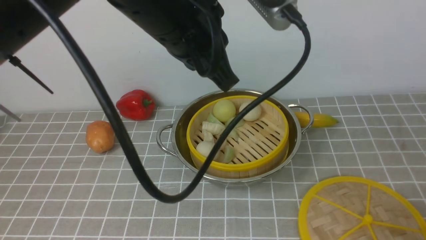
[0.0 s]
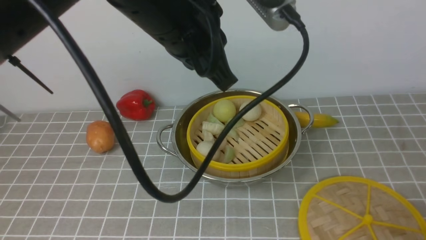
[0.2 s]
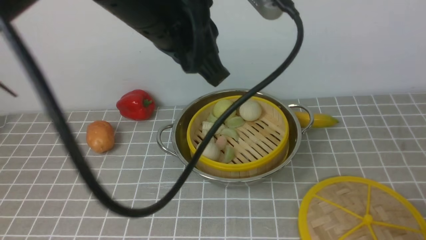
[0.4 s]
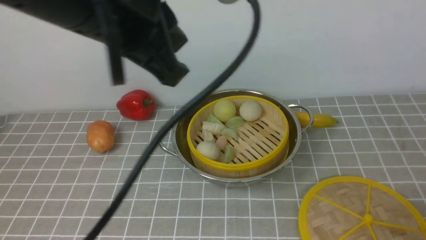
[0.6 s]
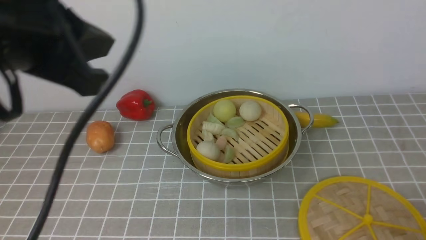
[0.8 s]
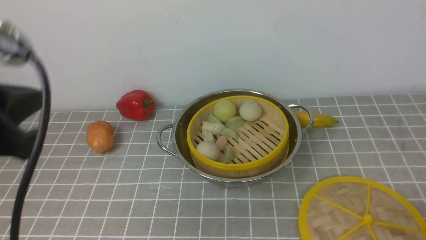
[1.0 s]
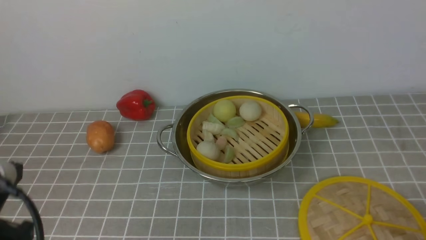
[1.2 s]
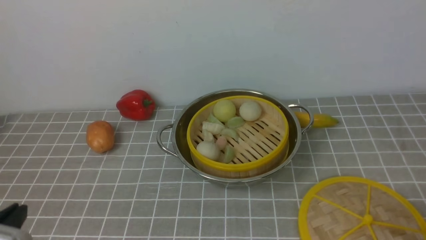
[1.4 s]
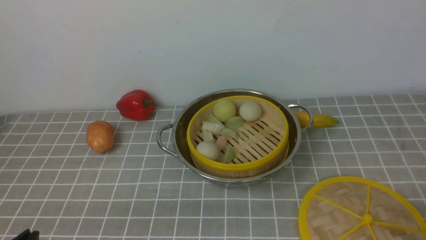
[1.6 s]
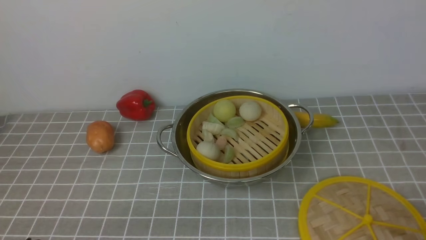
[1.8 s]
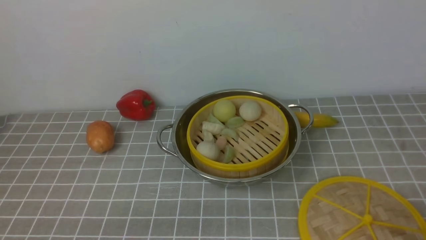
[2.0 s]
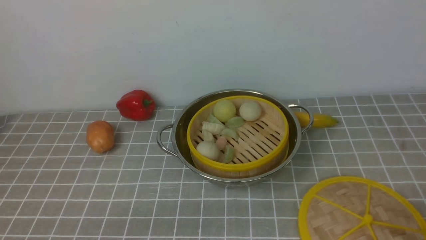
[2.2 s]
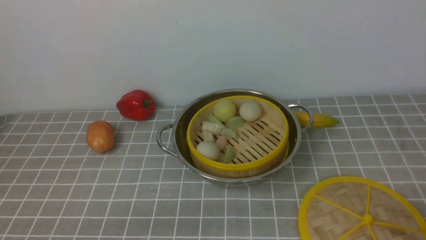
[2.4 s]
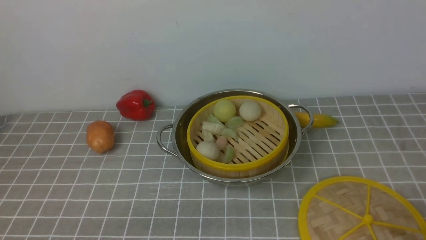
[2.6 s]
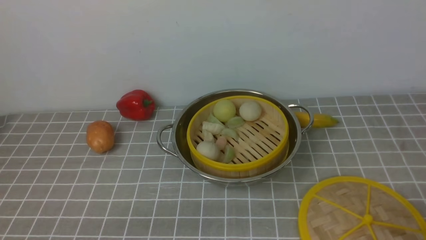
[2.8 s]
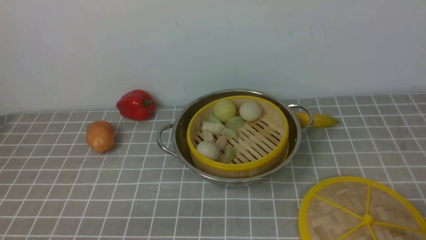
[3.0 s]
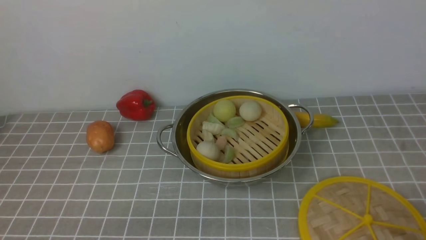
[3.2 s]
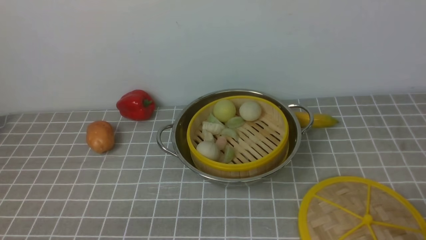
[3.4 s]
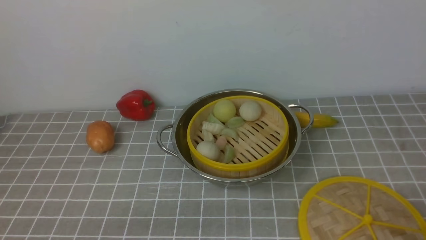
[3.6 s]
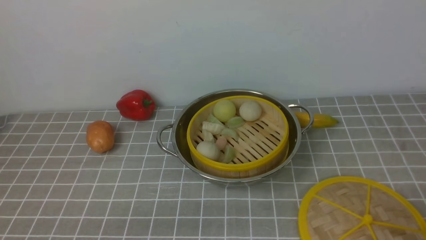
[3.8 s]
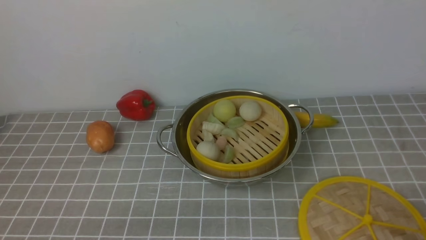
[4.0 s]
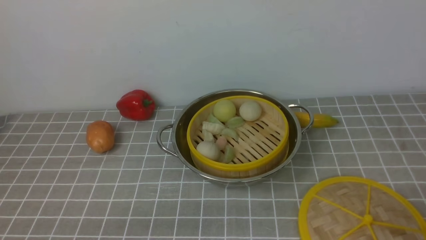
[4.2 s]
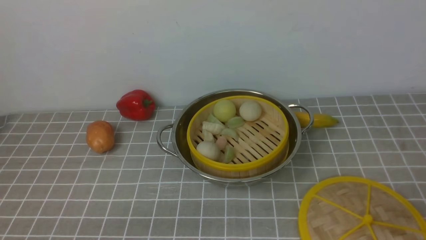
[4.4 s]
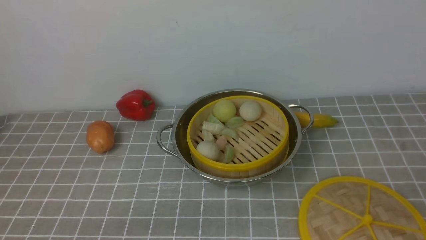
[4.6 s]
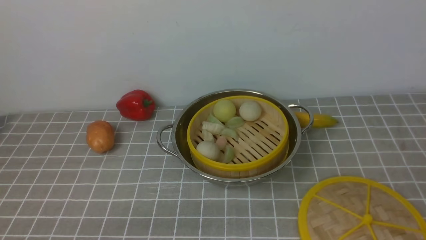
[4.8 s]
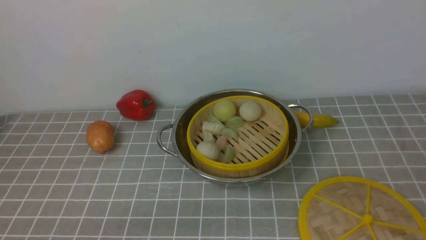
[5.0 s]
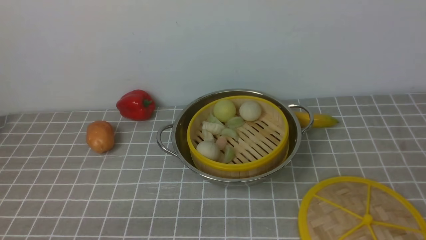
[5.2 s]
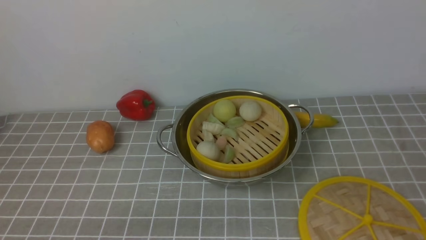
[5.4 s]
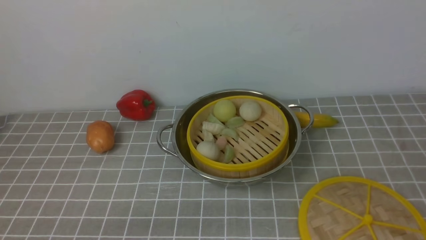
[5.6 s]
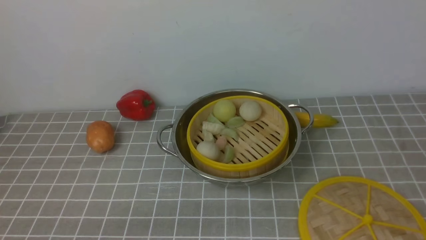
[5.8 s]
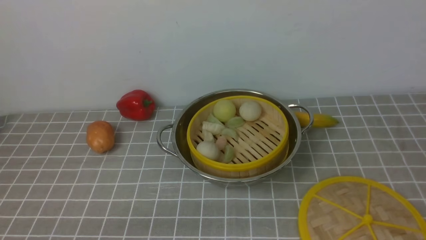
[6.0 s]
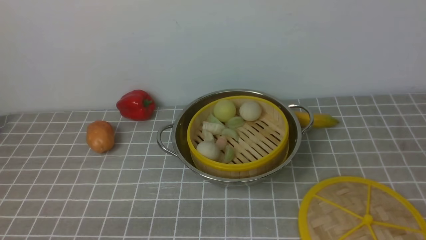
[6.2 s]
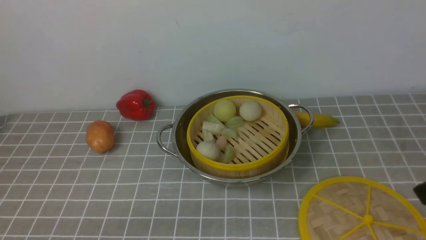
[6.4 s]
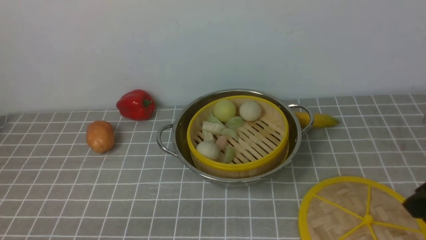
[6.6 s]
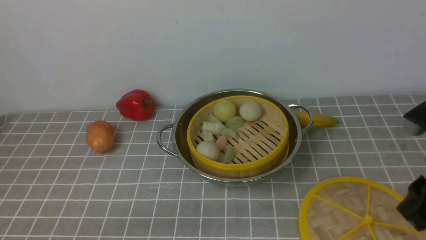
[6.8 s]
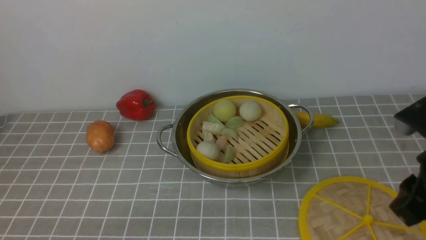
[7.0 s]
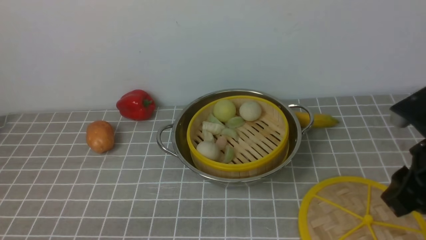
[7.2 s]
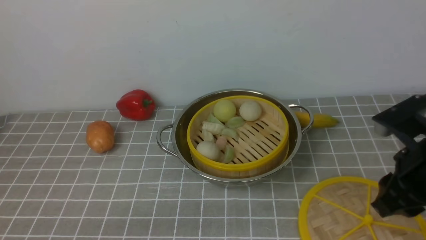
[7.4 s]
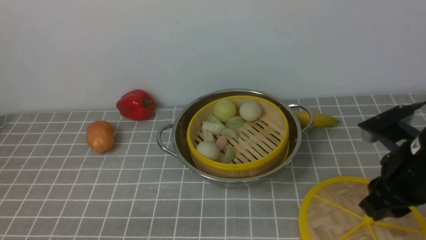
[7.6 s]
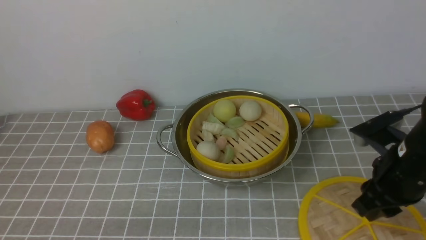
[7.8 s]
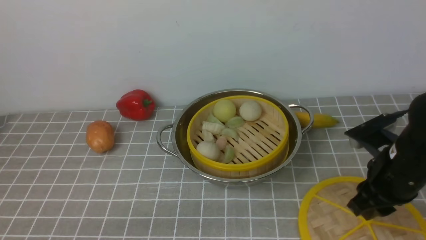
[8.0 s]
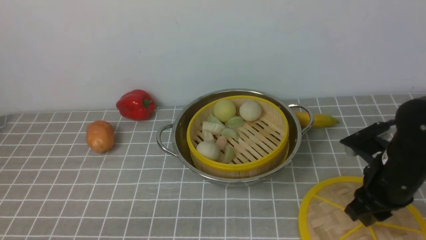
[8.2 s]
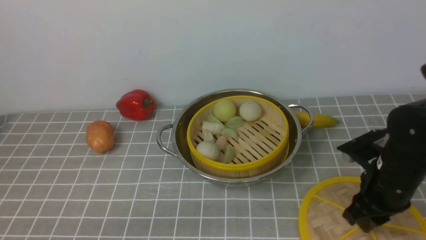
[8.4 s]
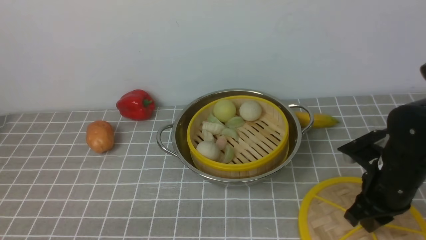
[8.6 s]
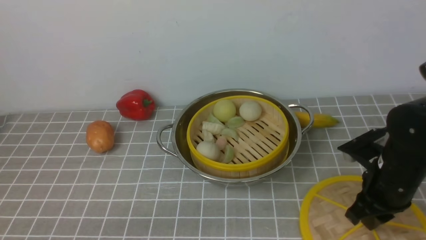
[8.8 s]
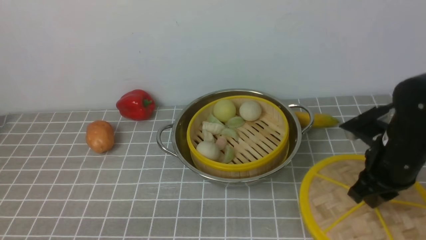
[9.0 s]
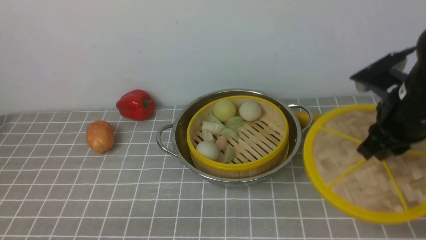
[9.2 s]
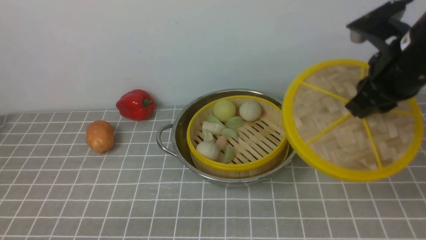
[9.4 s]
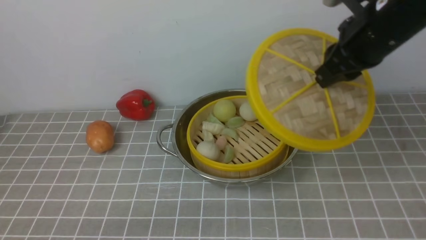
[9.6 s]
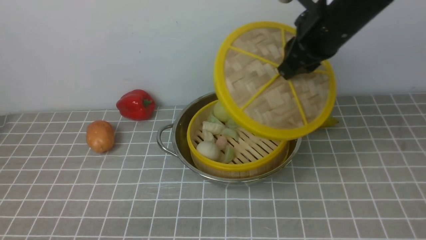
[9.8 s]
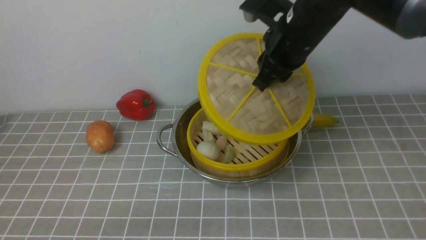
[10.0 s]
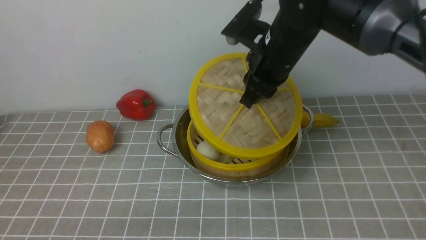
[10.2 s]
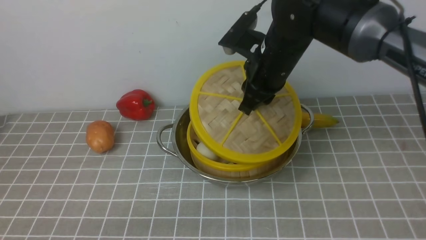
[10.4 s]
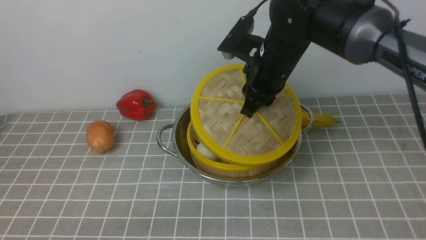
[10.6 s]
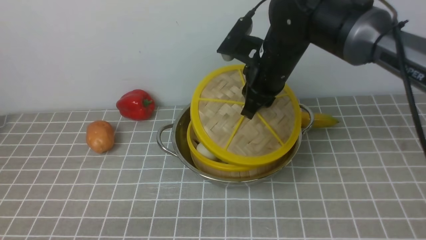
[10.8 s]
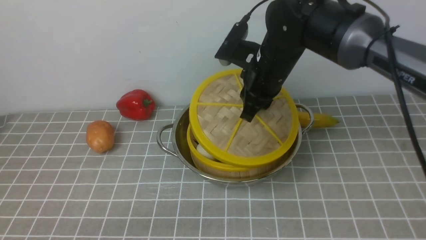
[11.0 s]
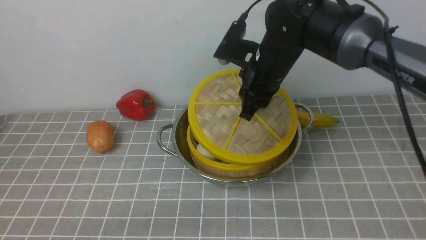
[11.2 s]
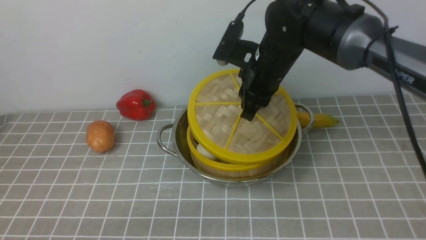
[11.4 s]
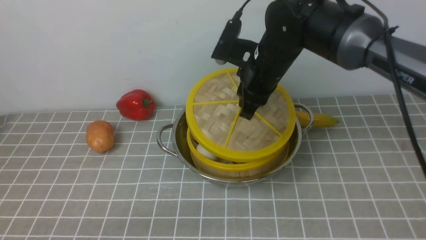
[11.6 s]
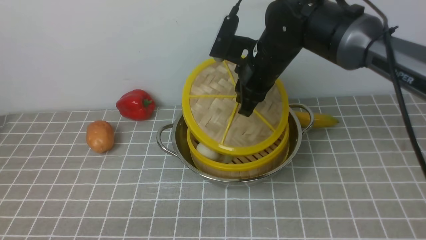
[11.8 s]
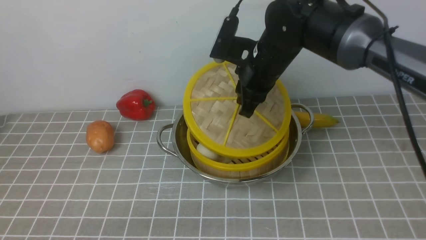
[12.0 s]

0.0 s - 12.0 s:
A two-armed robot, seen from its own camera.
Task of the whole recording: place the steamer in the pot on the grey tablecloth, and put the lid on the steamer.
Step, 0.0 s - 8.8 s: use the right arm to lift the lid of the steamer.
0.0 s - 1.6 s: The left gripper goes some 35 cm backward, to the left and downward.
6.0 s - 7.6 s: The right gripper shifts some 20 cm forward and downward.
7.6 s - 9.0 s: The right gripper shifts by roughly 5 cm, and closes.
9.0 s - 10.4 s: The right gripper moves to the left, forward and upward, approximately 20 cm.
10.4 s - 12.0 s: There are only small adjustments of the grippers.

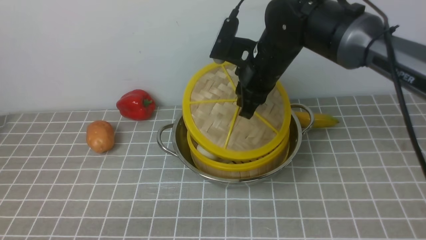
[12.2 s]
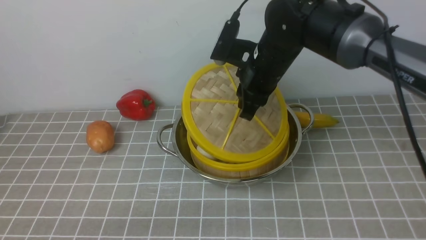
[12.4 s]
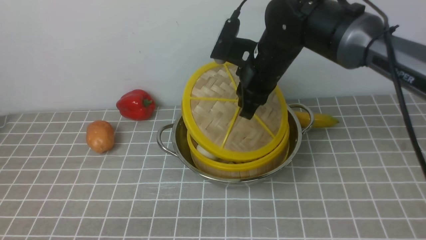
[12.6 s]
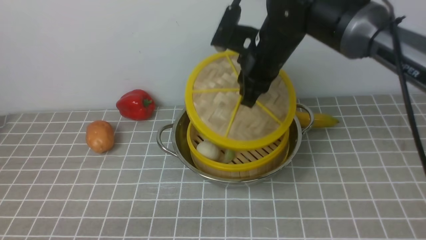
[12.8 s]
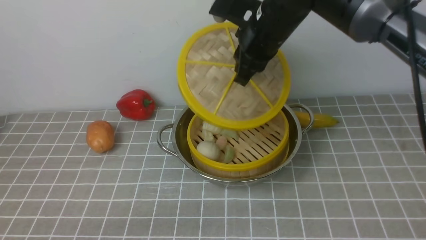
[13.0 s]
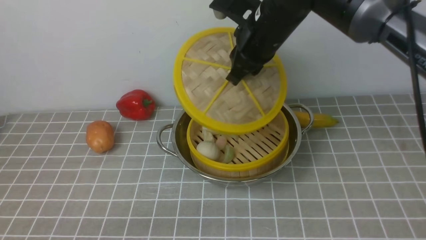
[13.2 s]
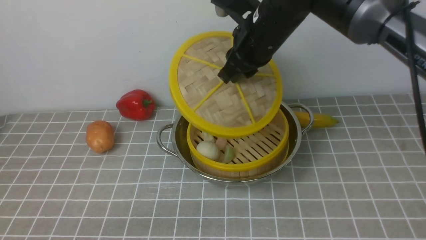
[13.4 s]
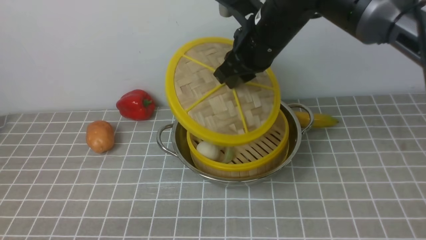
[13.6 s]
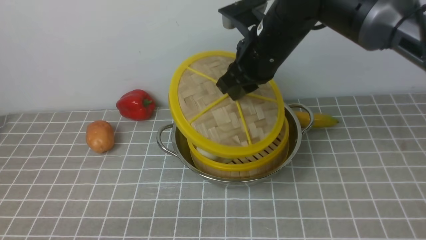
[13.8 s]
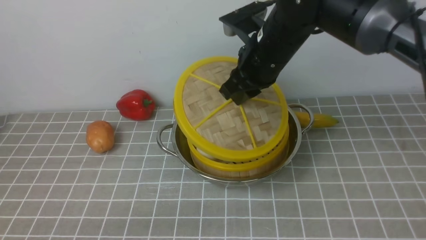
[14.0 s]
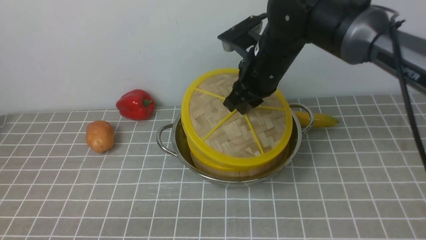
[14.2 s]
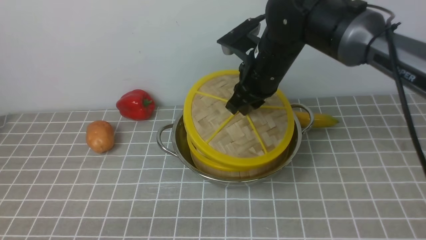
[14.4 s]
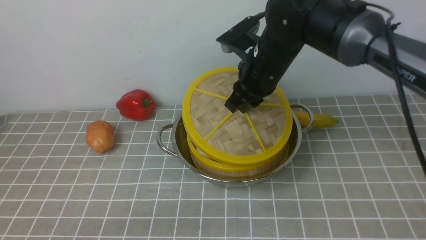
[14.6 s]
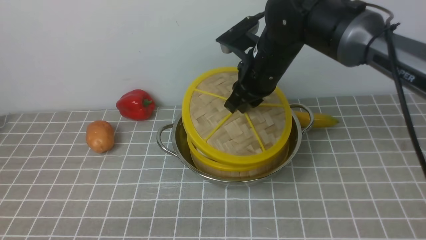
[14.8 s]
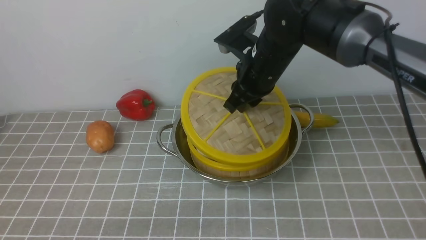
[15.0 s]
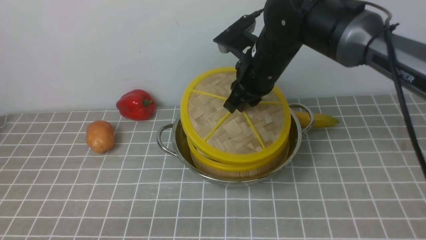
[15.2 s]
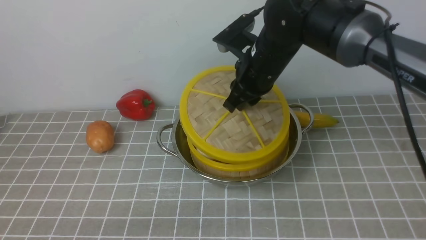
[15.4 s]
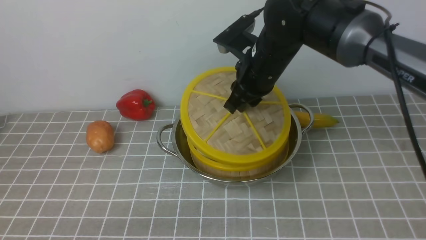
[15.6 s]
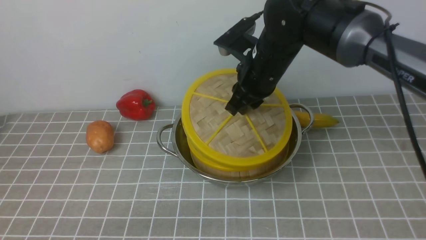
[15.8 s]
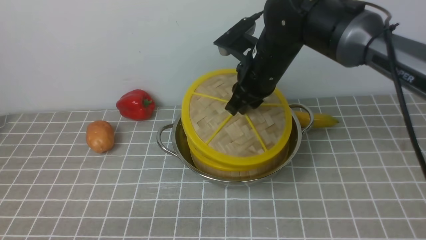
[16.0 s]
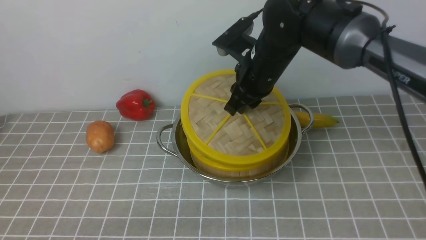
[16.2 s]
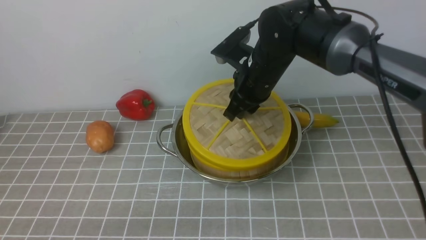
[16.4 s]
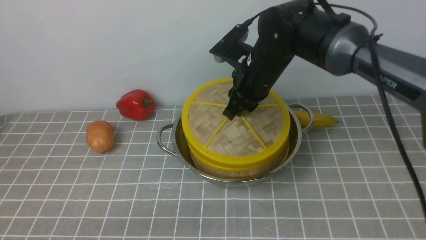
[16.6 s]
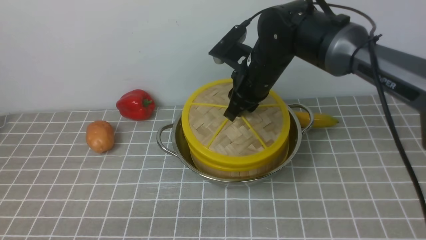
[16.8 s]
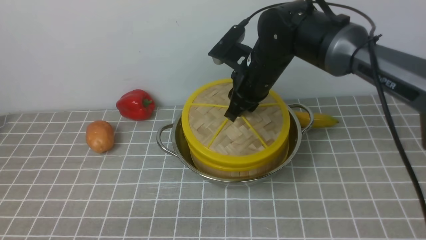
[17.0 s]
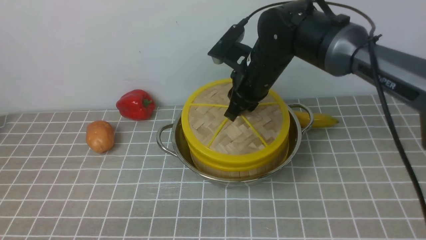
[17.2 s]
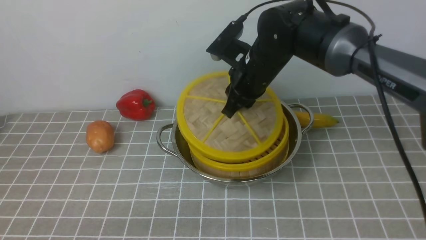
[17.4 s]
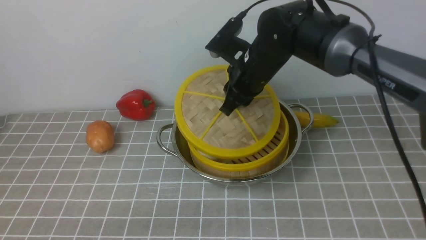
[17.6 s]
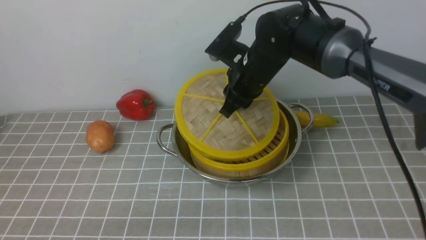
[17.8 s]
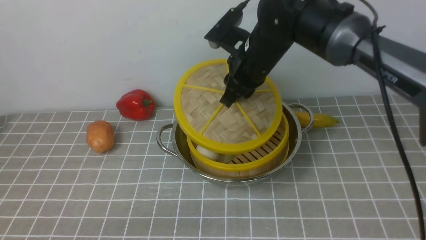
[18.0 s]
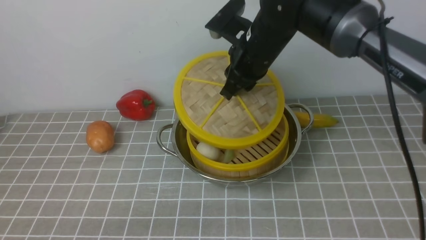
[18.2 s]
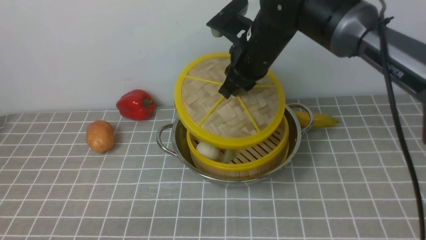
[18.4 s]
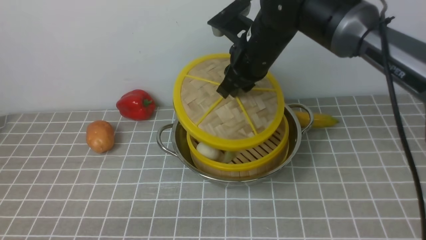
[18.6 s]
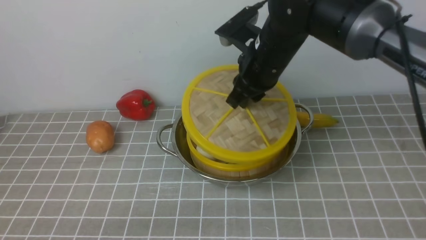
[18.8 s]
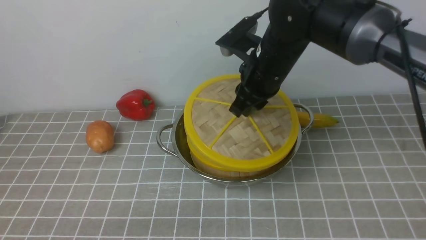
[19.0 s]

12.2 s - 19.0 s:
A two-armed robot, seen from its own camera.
Task of the whole recording: place the steamer in the pot on the grey tablecloth, and put the lid on the steamer.
12.2 s - 13.6 s: The right gripper travels upward by some 5 cm.
13.6 s - 15.0 s: There are only small adjustments of the grippers.
15.0 s - 16.2 s: Neither gripper changes place.
16.2 s - 19.0 s: The grippers make only small movements.
